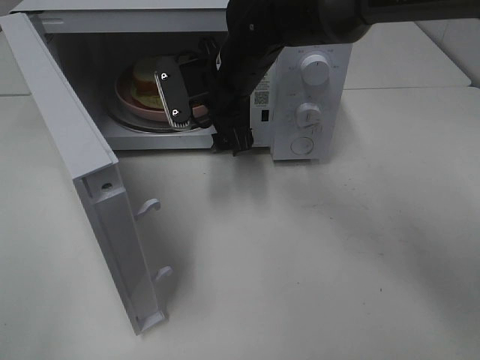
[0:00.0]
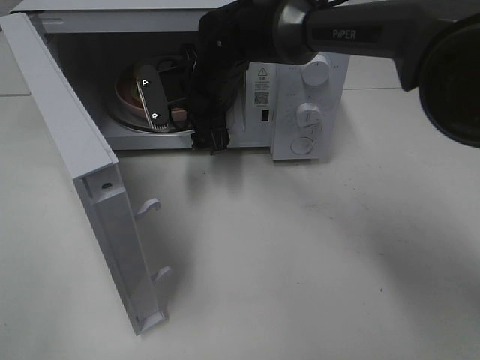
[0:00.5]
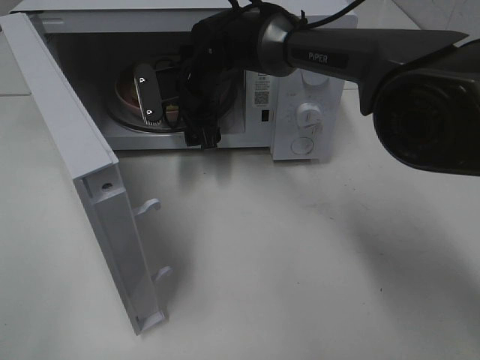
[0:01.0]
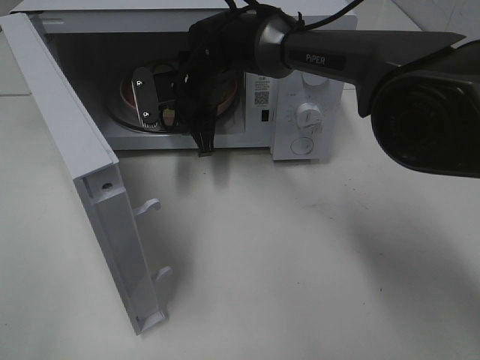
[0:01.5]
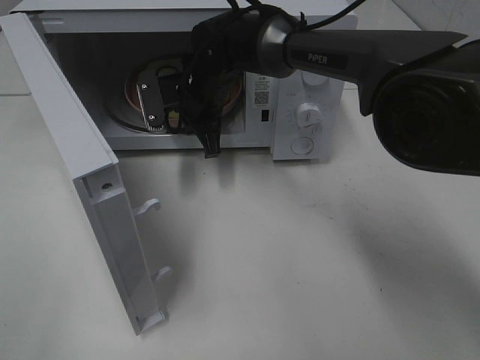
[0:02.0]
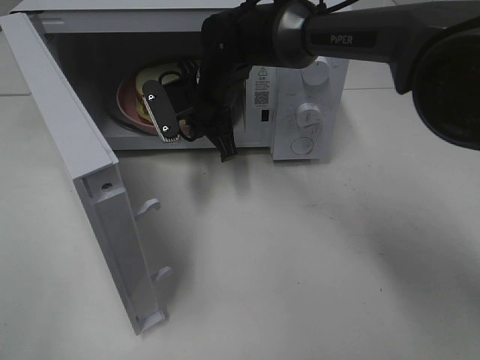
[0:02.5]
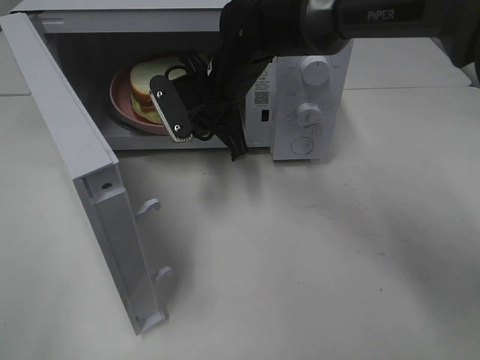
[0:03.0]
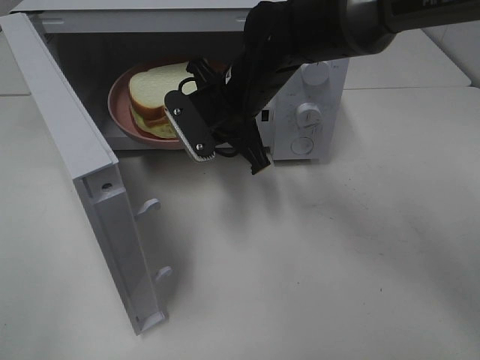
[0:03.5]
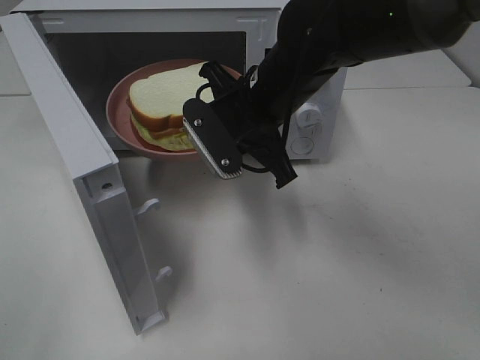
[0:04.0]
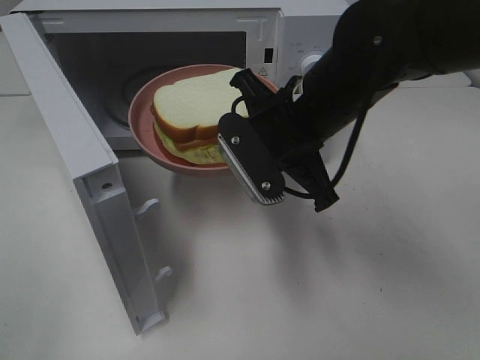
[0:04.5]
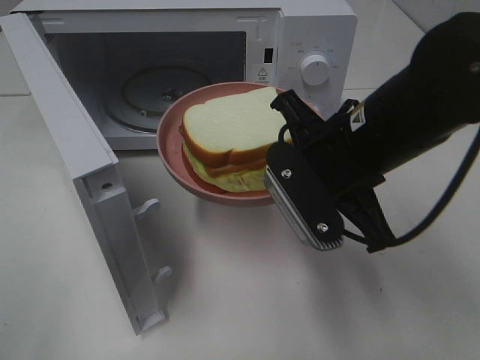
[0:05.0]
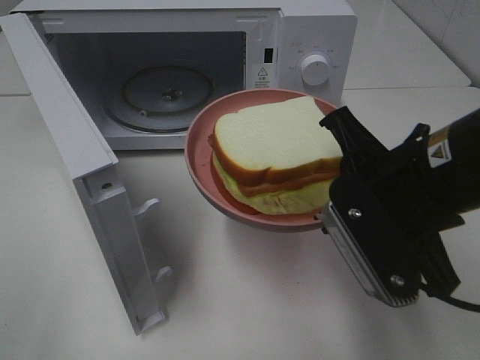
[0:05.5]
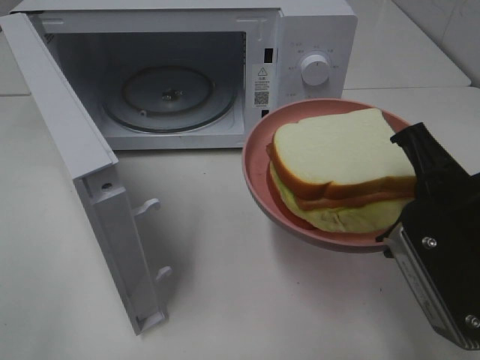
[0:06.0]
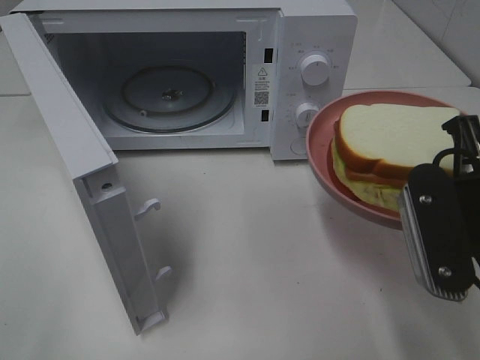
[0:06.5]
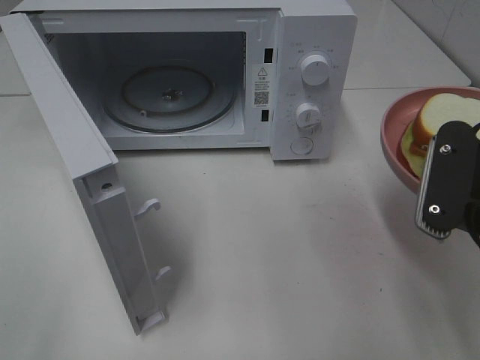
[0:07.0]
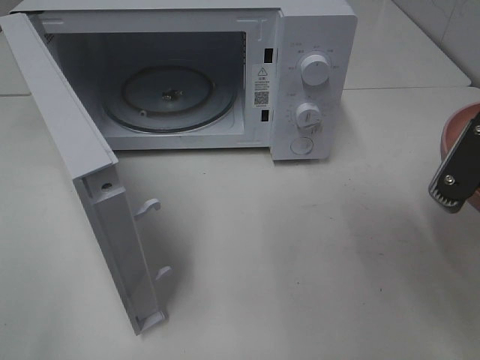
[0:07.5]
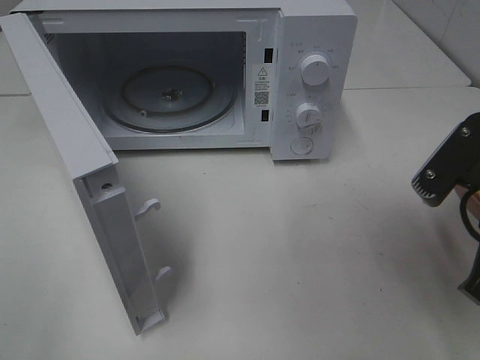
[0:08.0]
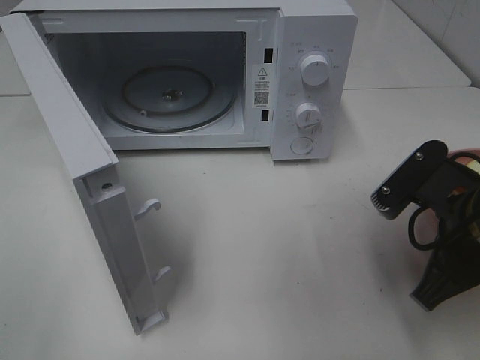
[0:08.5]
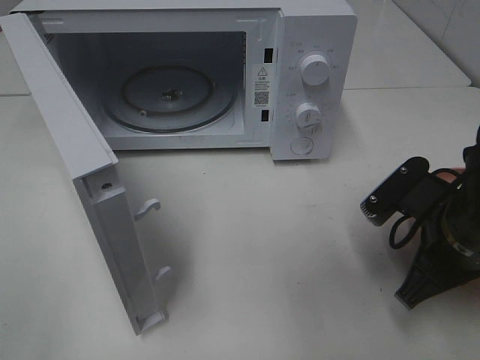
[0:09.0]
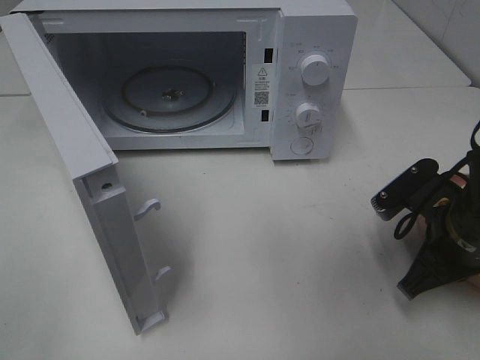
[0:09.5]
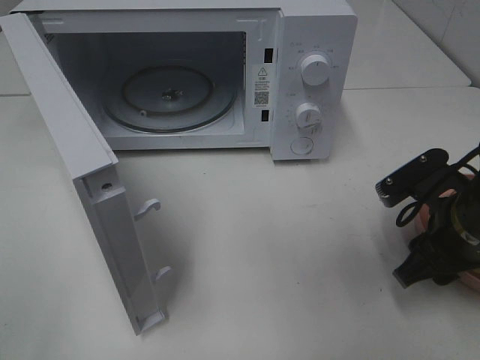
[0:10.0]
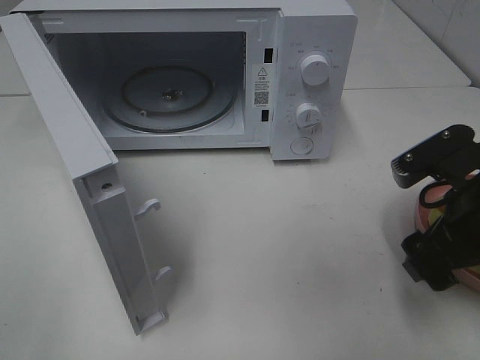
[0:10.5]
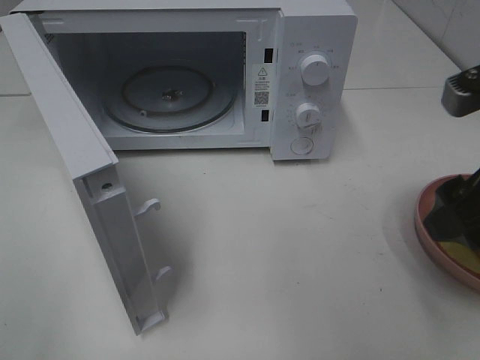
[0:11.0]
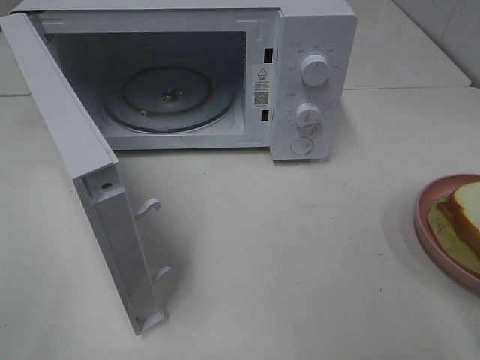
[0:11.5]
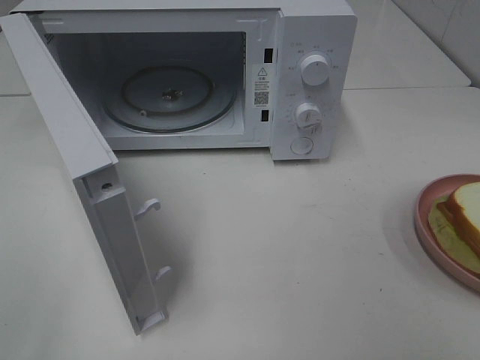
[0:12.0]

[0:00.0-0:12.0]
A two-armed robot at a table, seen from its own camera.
Task of the whole recording: Heat Sandwich.
Step, 0:02.0 to 0:11.0: Right hand: place the plate on the table.
0:00.0 to 0:02.0: The right gripper shifts some 5 cm forward, and closes.
0:02.0 to 0:04.0: The right gripper moves backward, to the right and upward, about 15 cm.
0:04.0 to 0:06.0: The right gripper goes about 25 cm backward and to the right.
0:08.0 to 0:10.0: The right gripper travels downward and forward by roughly 10 cm, and opens up.
0:10.0 to 0:12.0: The right gripper heads upward and backward, covering some 25 cm.

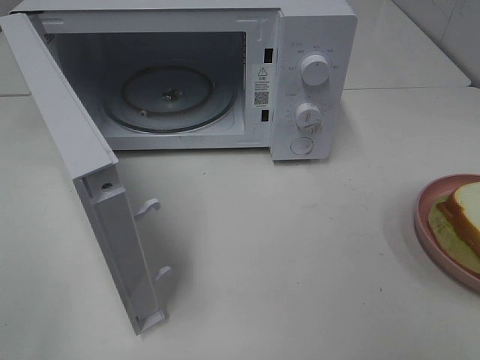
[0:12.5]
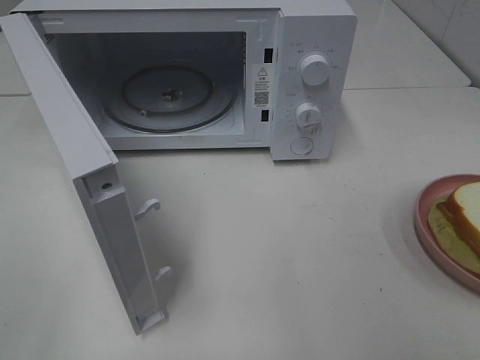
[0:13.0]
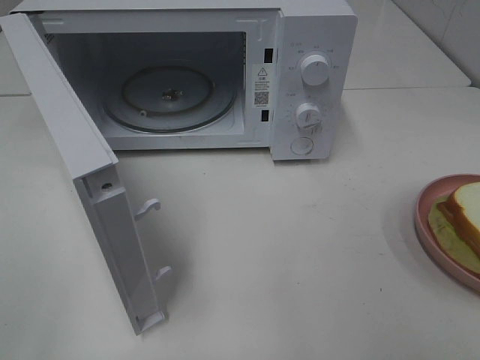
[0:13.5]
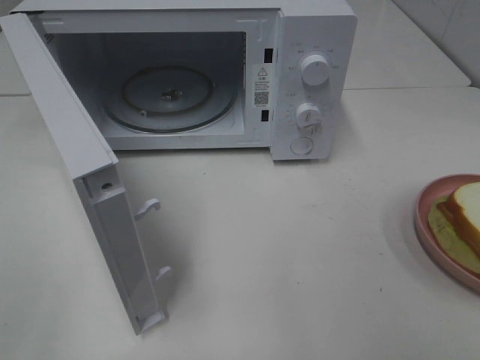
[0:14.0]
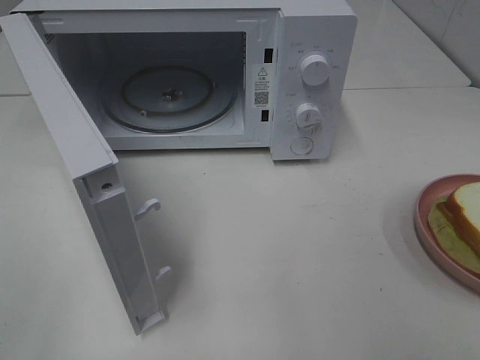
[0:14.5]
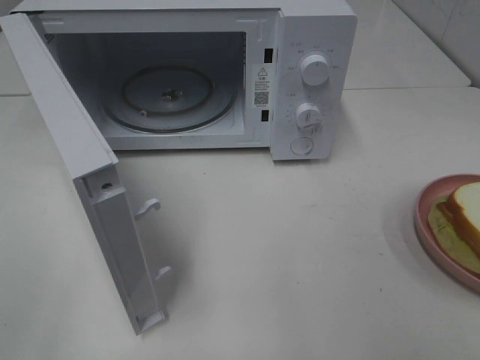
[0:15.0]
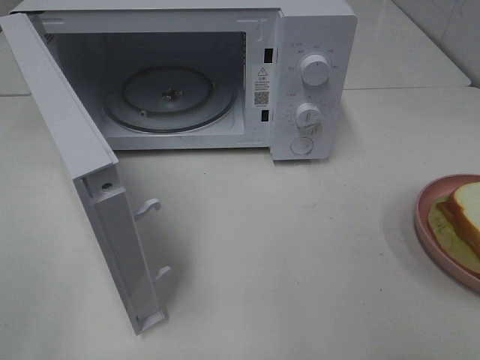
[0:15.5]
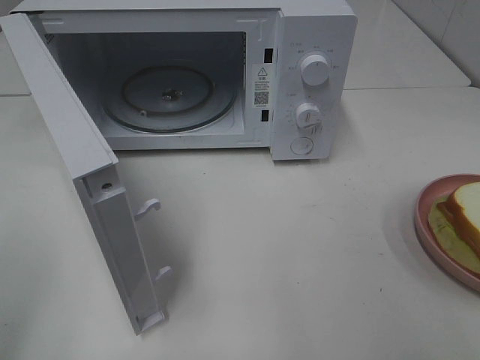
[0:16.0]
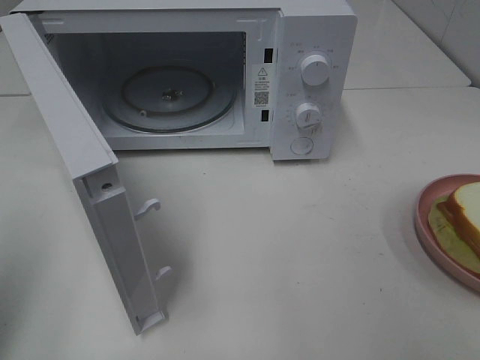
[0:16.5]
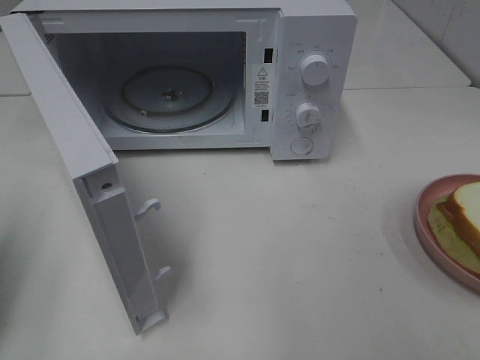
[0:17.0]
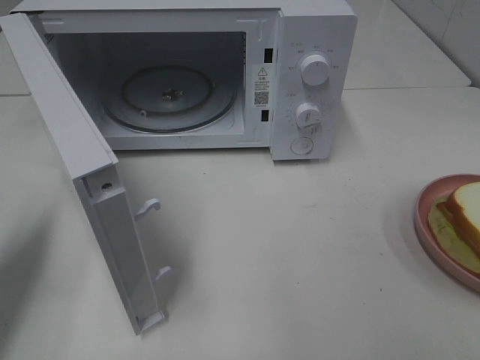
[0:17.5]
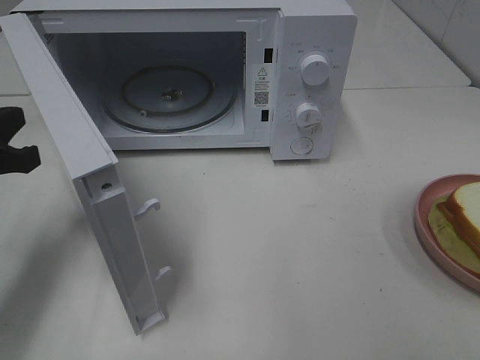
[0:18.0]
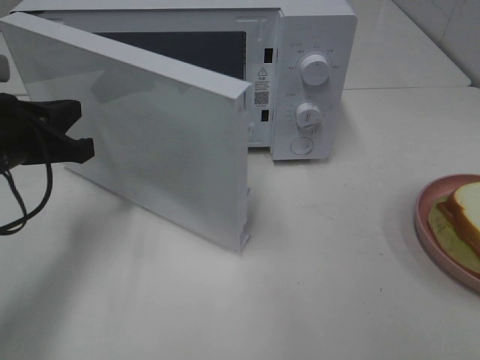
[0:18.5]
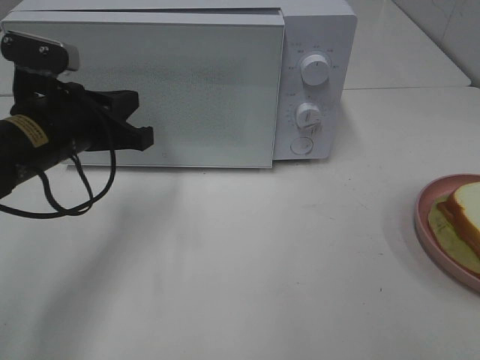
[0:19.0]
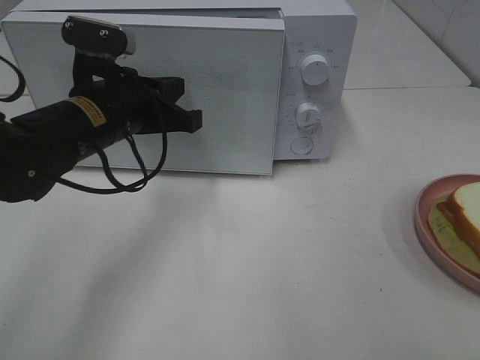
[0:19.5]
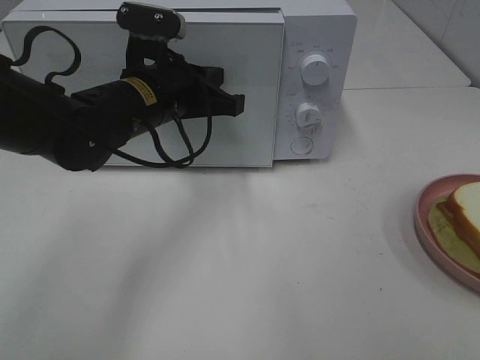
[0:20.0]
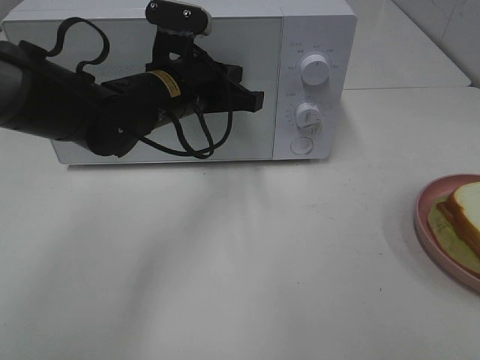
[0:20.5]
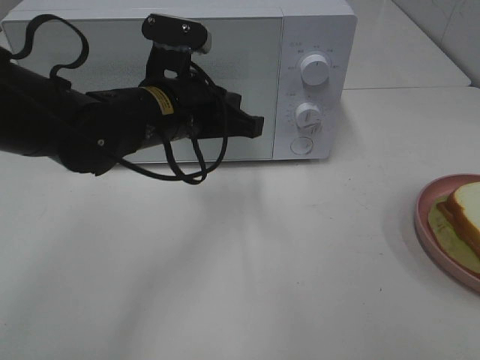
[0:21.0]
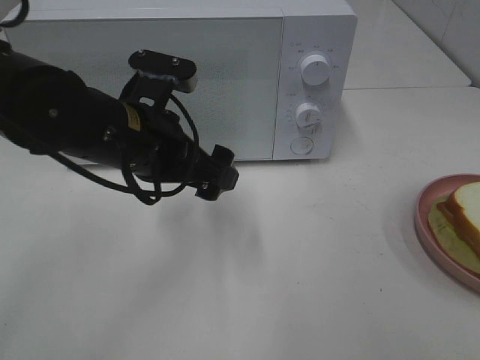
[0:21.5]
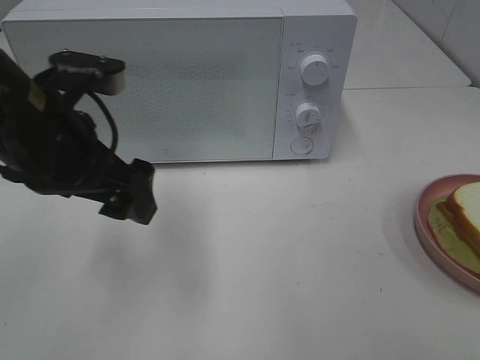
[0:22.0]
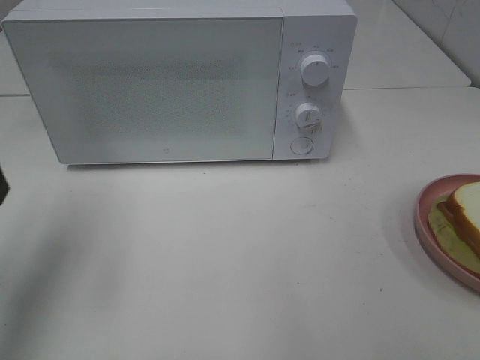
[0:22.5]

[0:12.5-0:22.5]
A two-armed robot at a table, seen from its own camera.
Task of the whole recording: Heat Sandwich.
Step, 0:12.5 to 0:21.0: Left hand: close the microwave door.
0:14.5 to 0:16.5: The left gripper heads forward, covering roughly 10 cm, and closes its fingers.
0:16.5 to 0:18.5: The left gripper moves forward, downward and to the right, some 20 cm.
0:18.5 to 0:20.5: The left gripper is displaced to the right and forward by about 20 cm.
0:20.5 to 0:22.5: The left gripper moves to the left, backward and upward, roughly 25 cm, and opens its fingers.

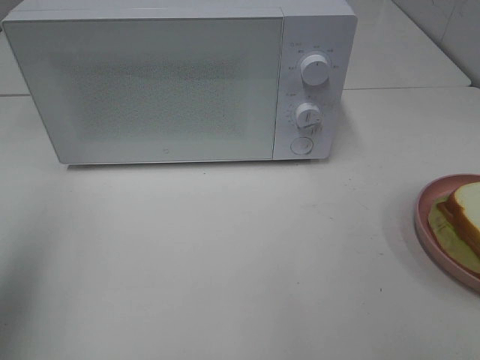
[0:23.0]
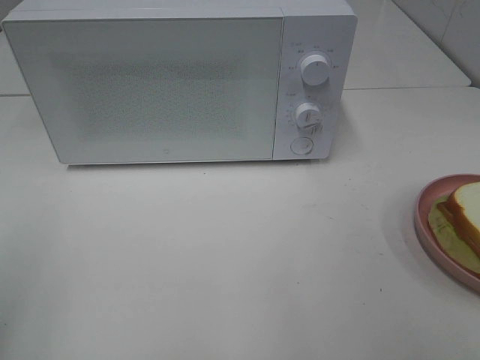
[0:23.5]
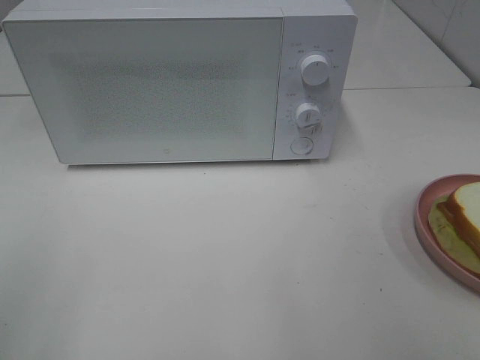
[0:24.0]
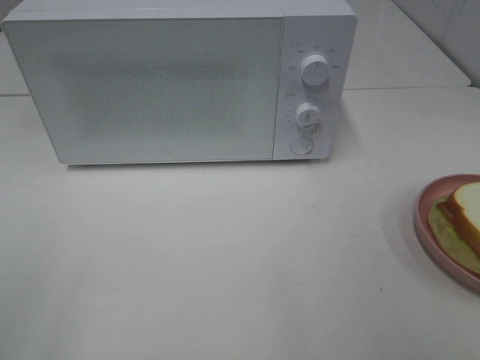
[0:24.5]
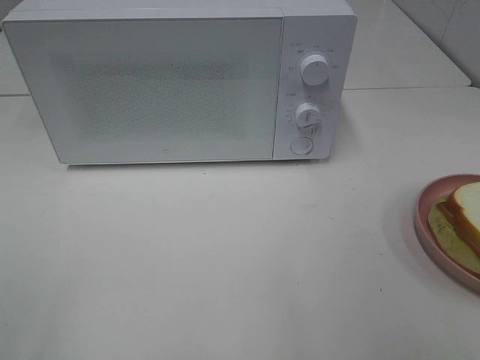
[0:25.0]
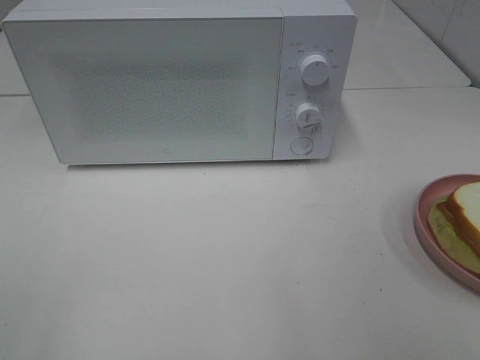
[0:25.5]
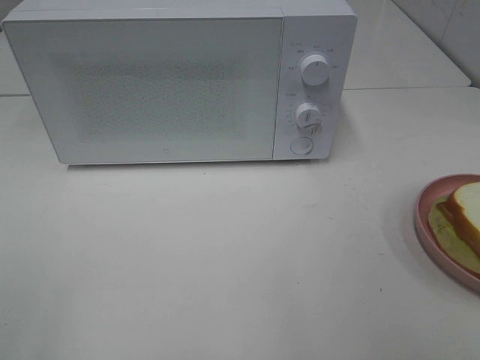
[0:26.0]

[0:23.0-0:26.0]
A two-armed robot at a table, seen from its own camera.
Task of the whole recording: Heat Sandwich.
0:23.0 to 0:24.5: The left gripper travels backward by some 15 cm.
